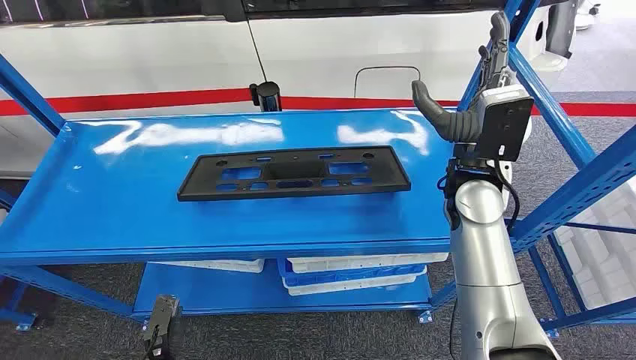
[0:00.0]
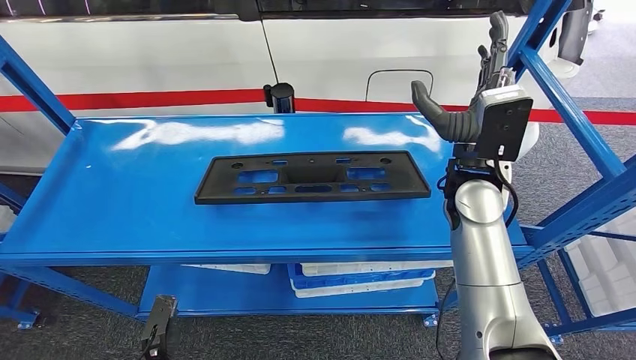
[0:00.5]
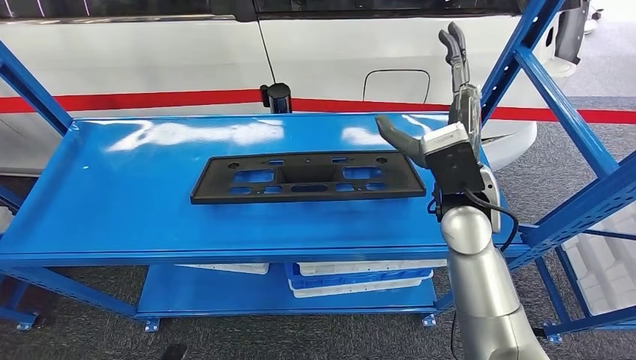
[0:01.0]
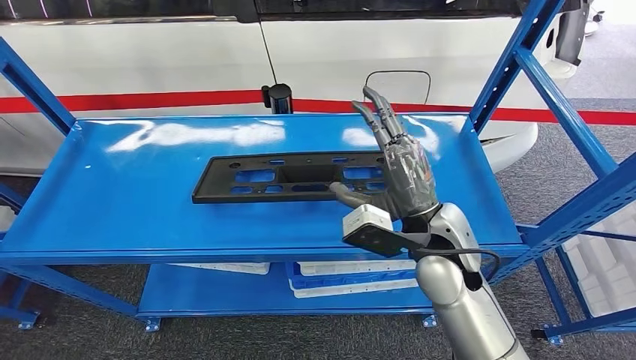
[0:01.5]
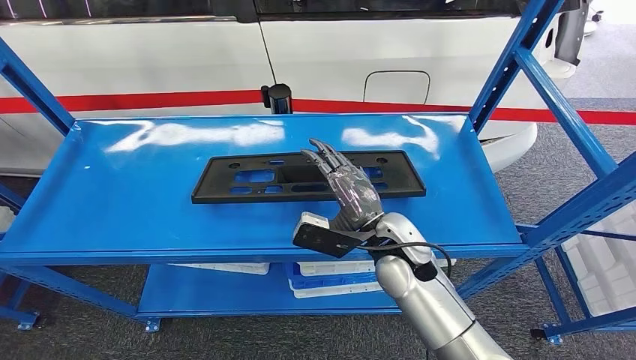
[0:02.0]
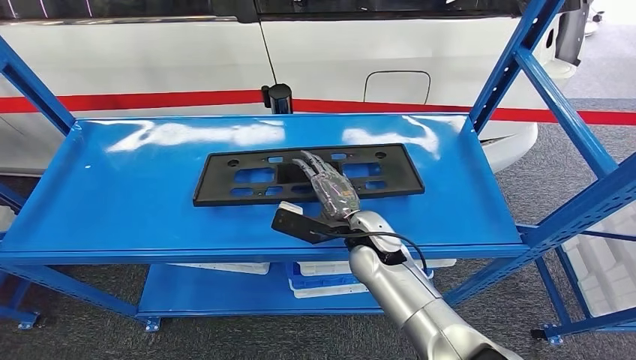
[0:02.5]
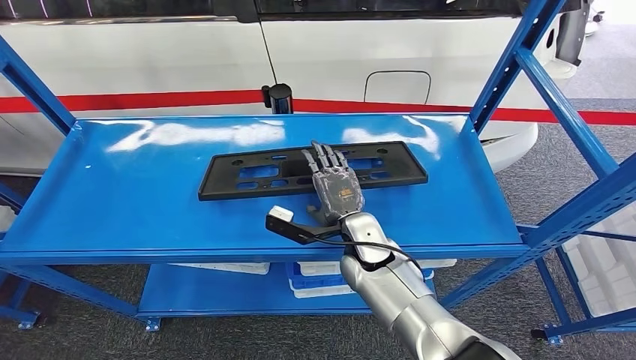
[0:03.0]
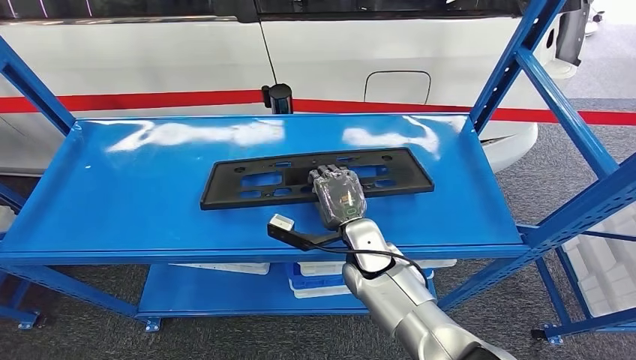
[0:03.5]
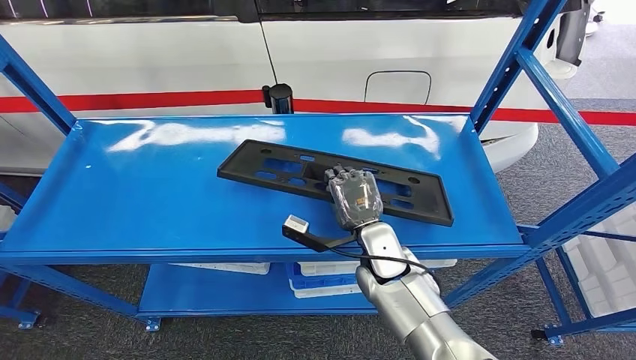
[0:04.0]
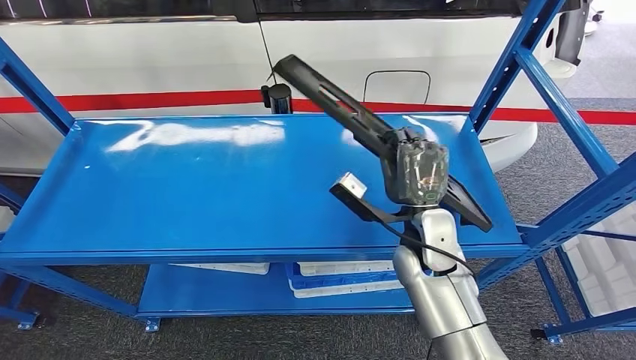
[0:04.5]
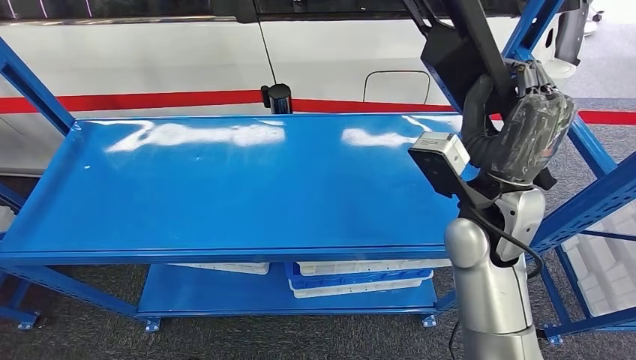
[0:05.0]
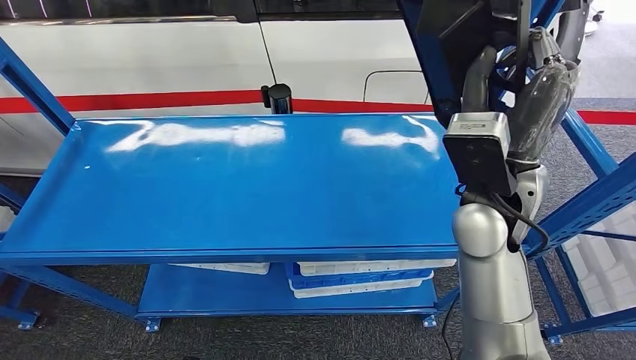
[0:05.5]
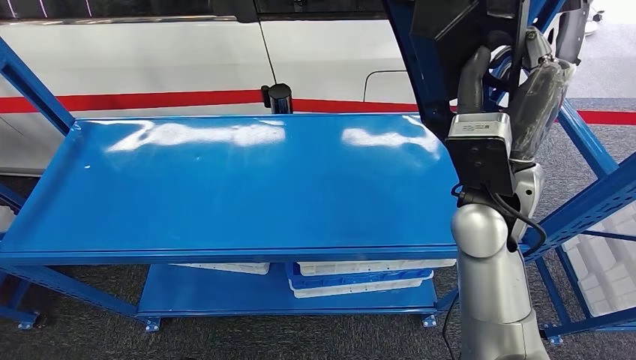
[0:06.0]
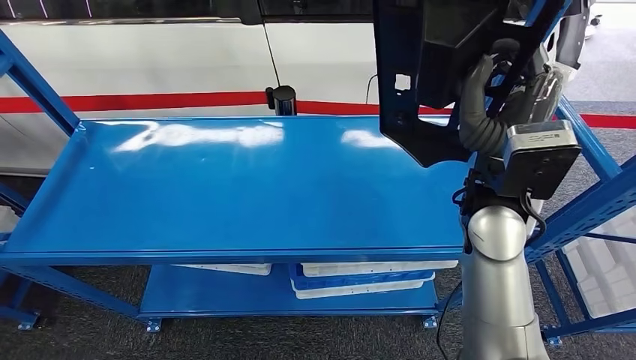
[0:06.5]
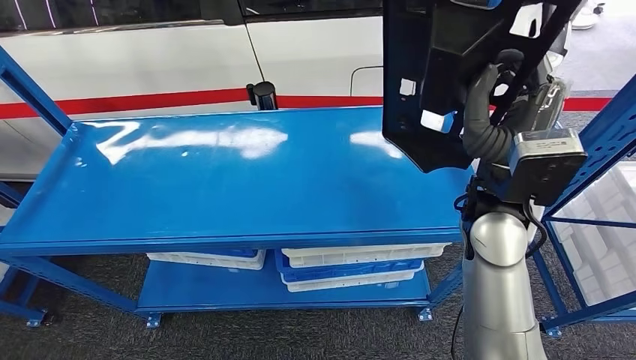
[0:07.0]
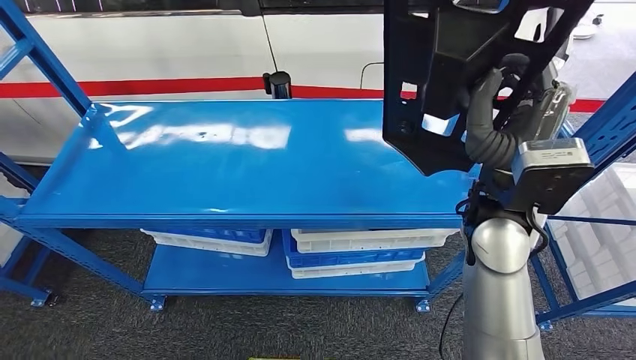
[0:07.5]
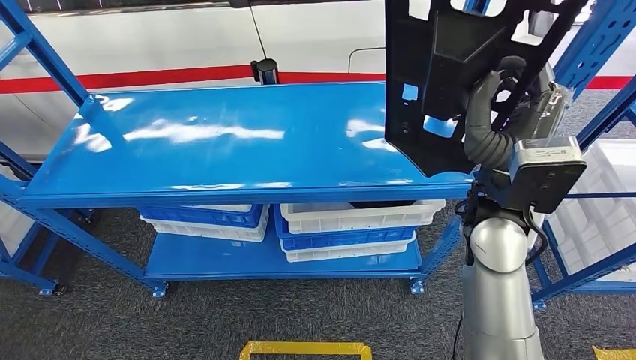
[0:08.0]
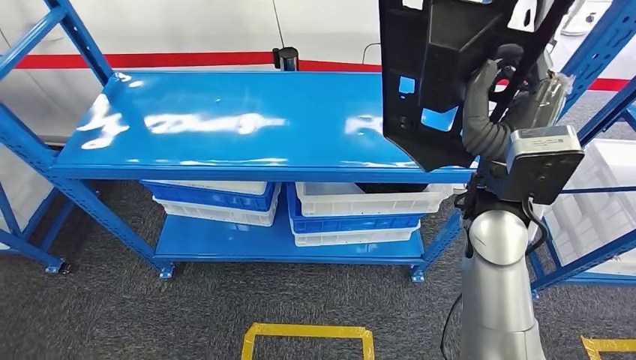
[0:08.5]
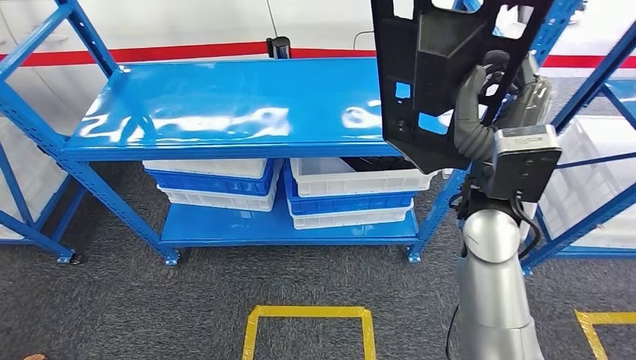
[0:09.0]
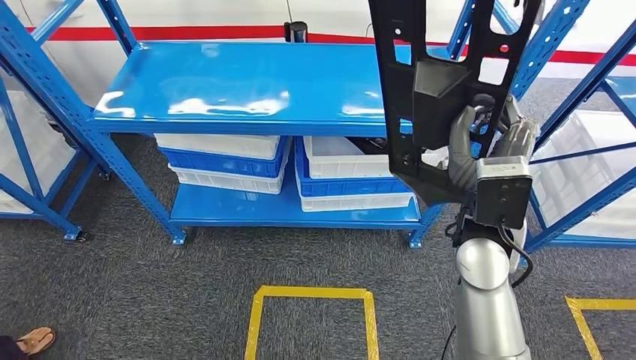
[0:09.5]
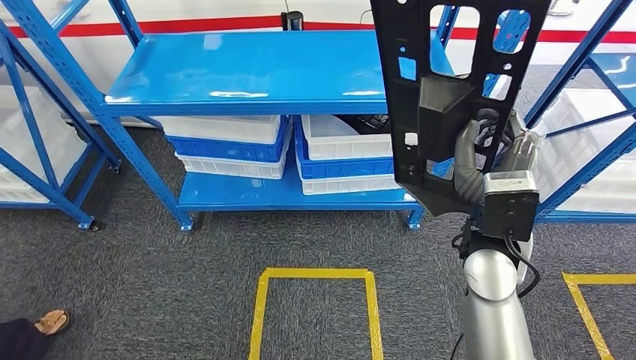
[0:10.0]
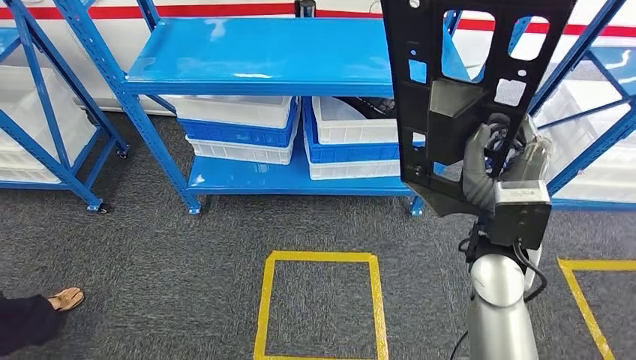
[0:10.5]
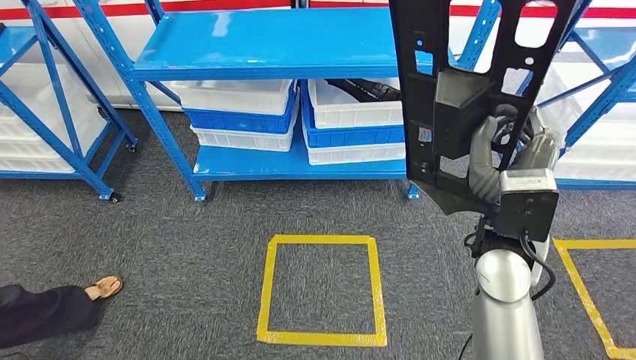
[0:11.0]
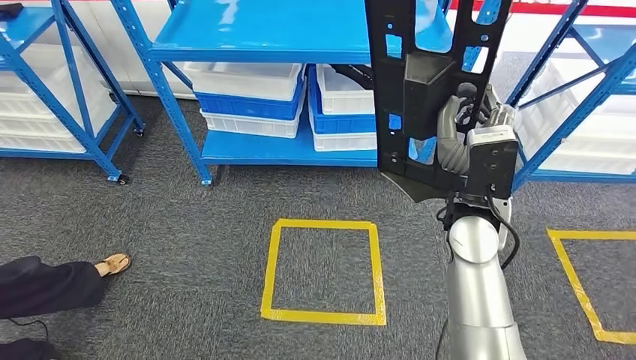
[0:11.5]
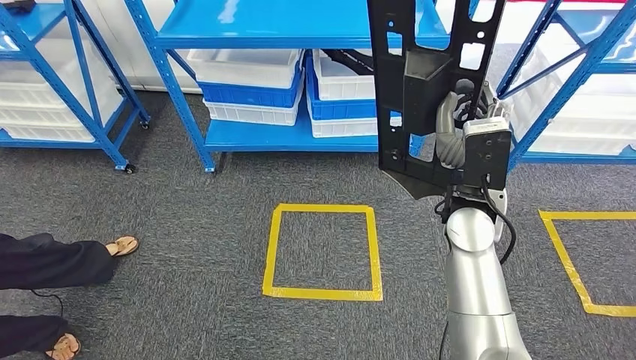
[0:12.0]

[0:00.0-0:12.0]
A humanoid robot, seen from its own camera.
Step, 0:00.0 to 0:05.5: Pick up the large material from the shelf.

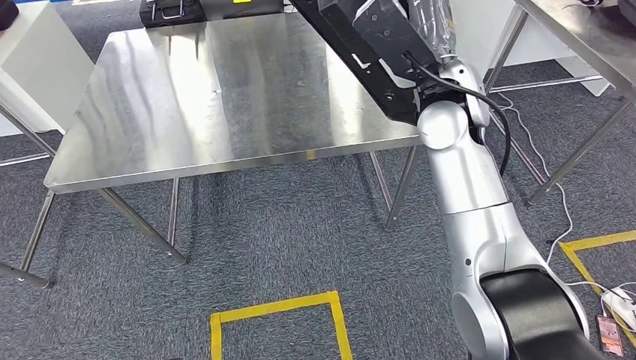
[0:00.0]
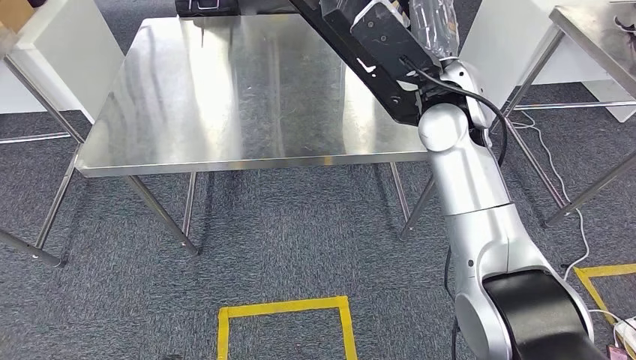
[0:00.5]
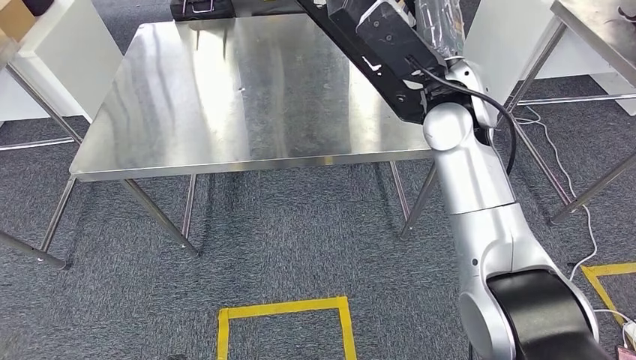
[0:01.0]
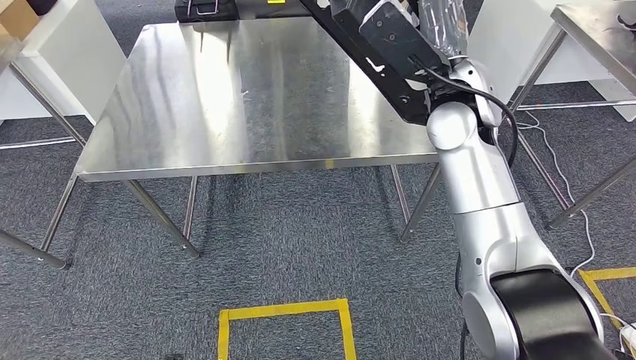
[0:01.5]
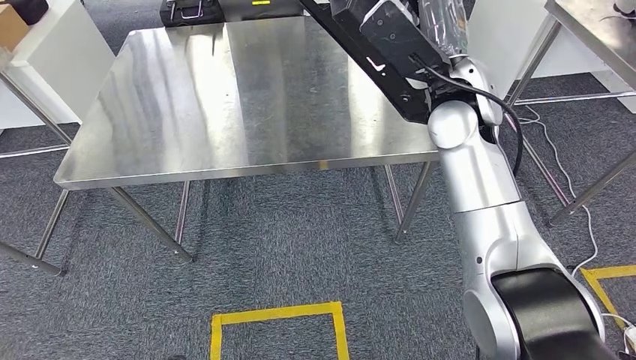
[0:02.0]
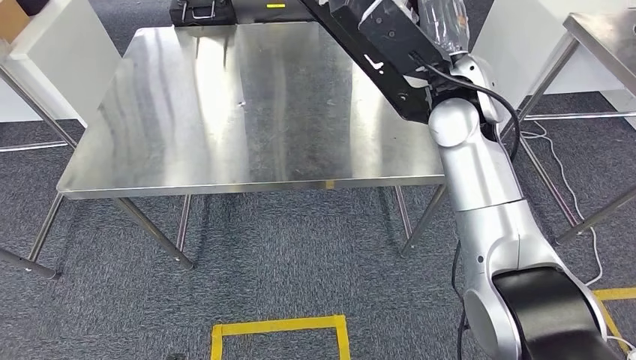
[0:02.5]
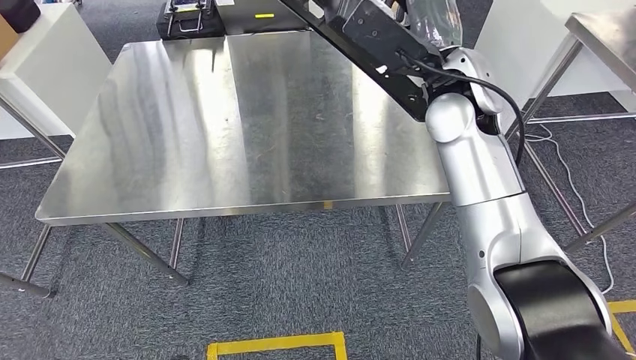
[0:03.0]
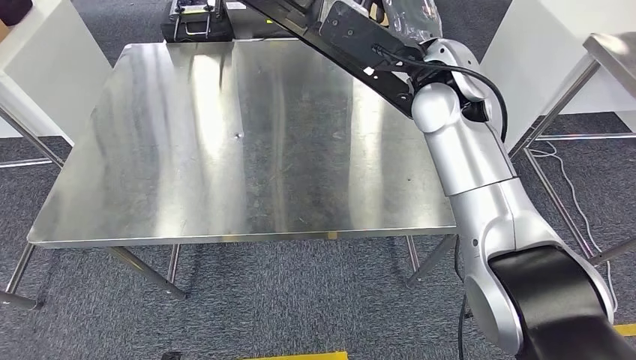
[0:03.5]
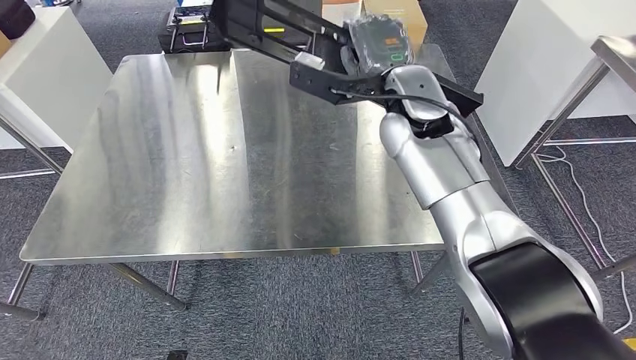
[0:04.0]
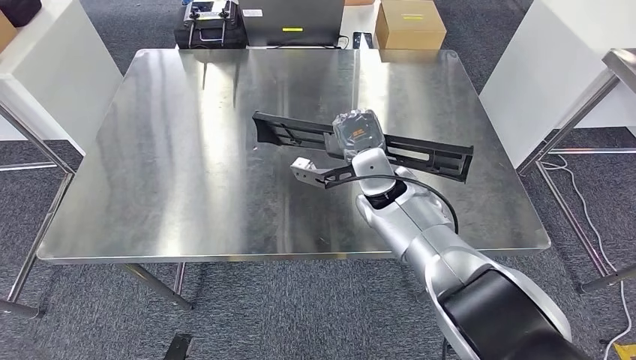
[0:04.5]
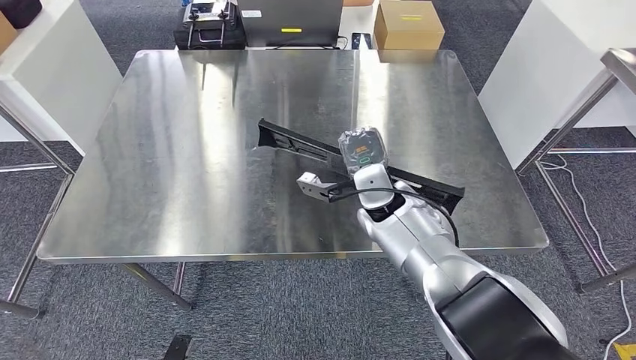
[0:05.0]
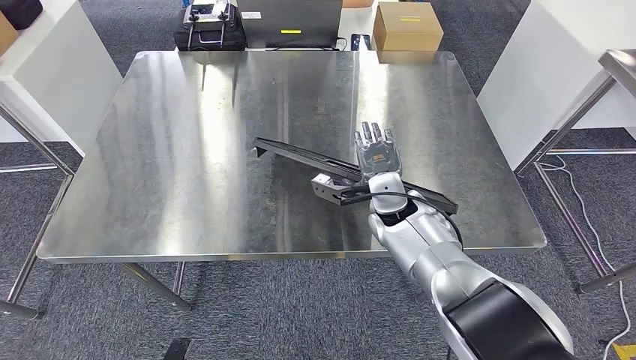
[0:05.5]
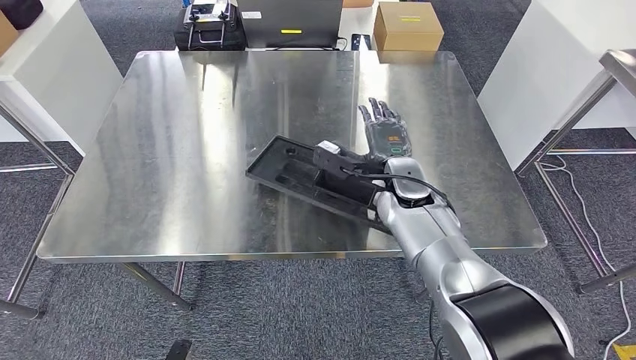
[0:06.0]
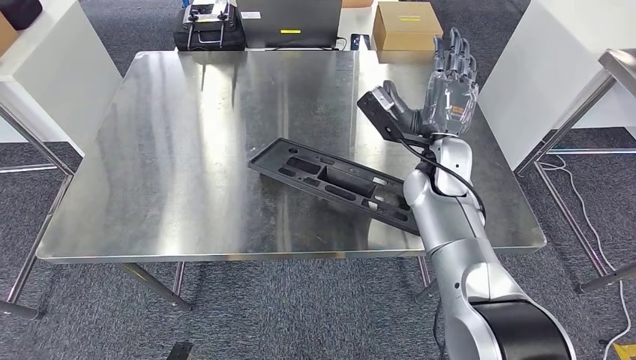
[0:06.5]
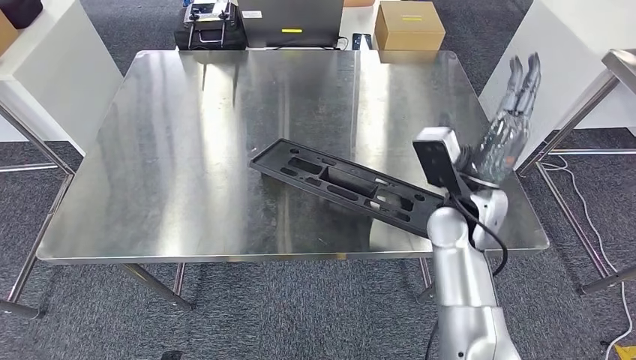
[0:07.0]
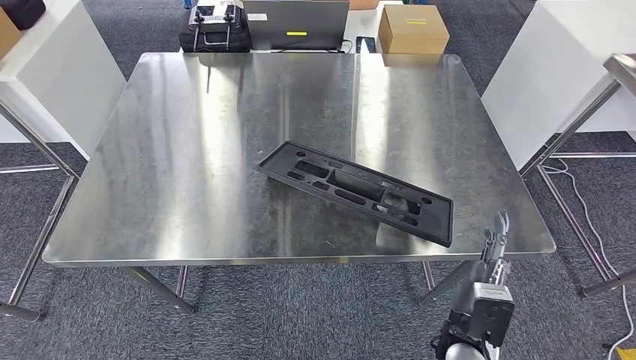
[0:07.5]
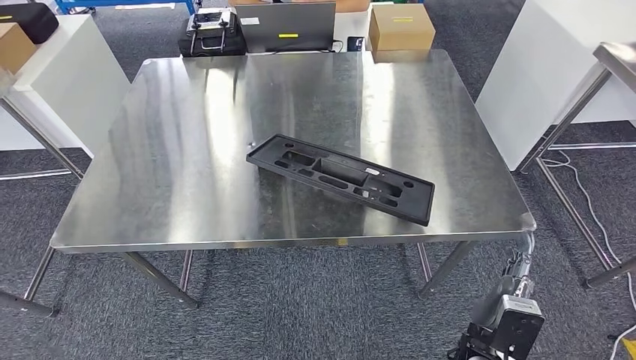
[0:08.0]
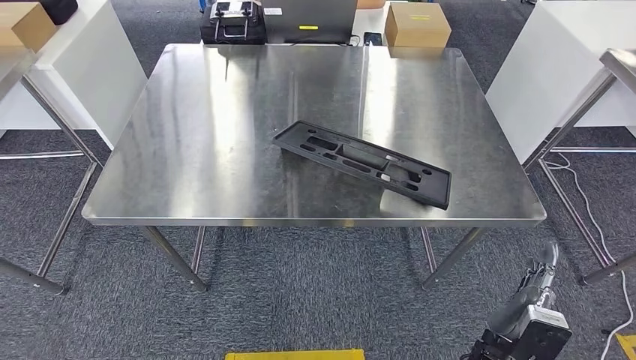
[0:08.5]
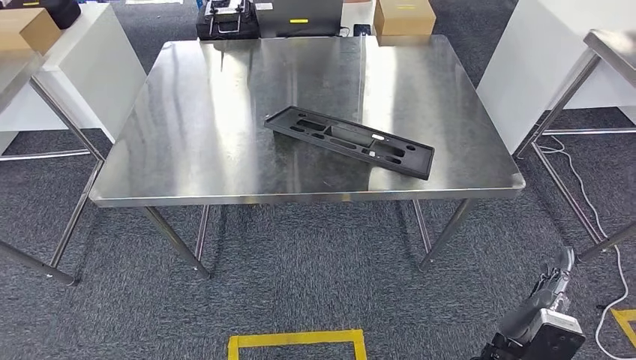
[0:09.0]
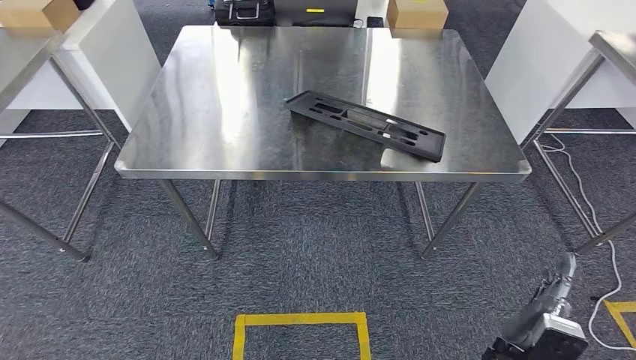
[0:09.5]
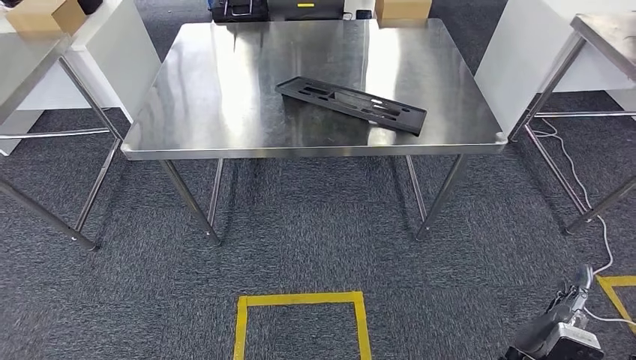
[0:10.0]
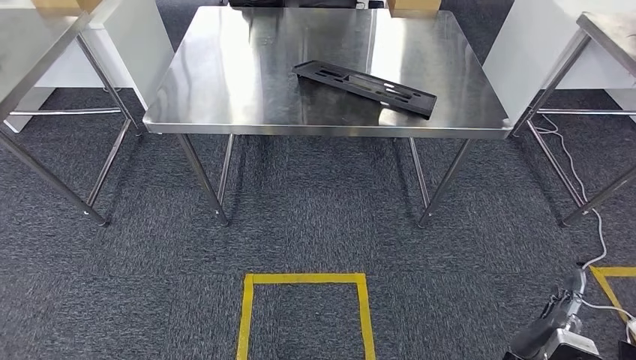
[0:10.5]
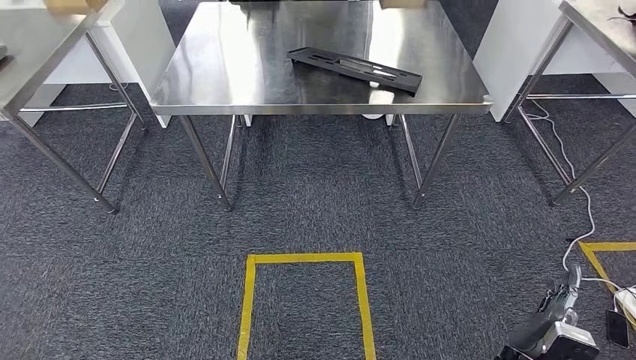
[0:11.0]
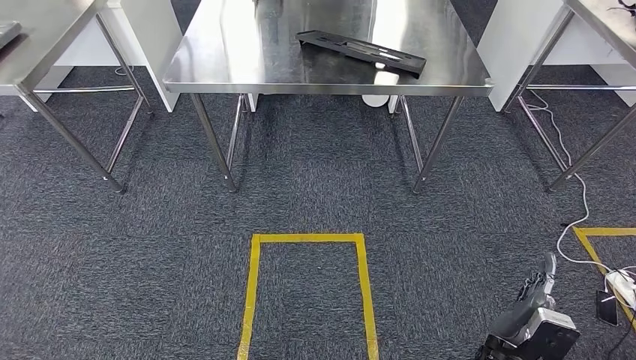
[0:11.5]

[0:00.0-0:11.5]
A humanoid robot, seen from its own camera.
Step, 0:01.5 to 0:07.5: Insert the large material into the corresponding slot on the workbench.
0:06.0 to 0:07.5: The right hand moves backward and downward, approximately 25 cm.